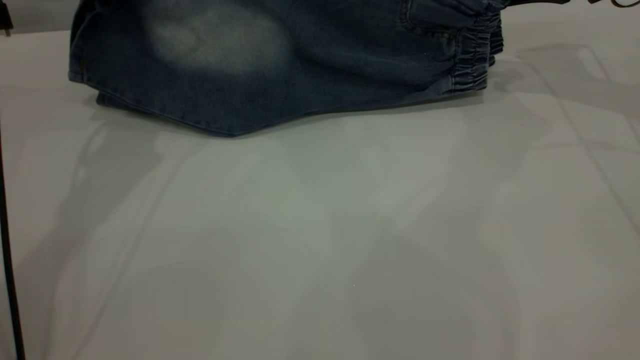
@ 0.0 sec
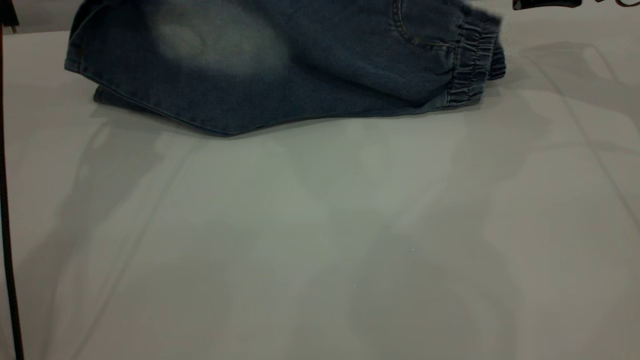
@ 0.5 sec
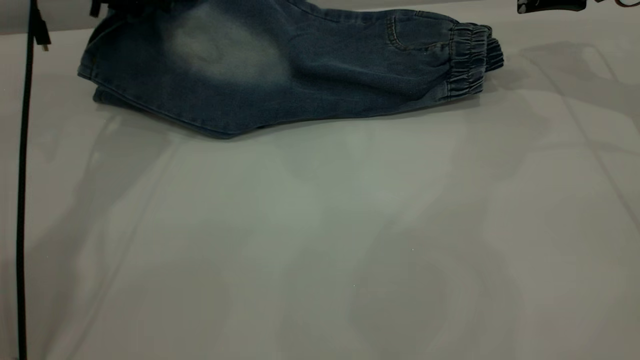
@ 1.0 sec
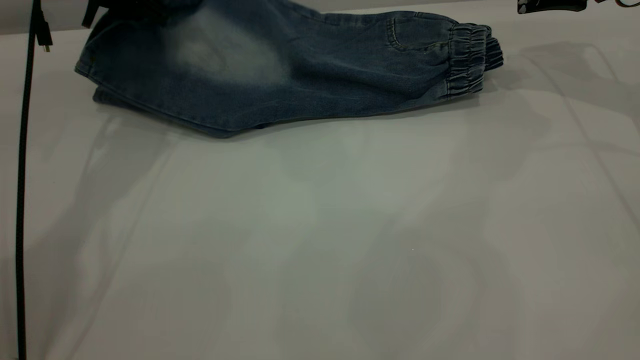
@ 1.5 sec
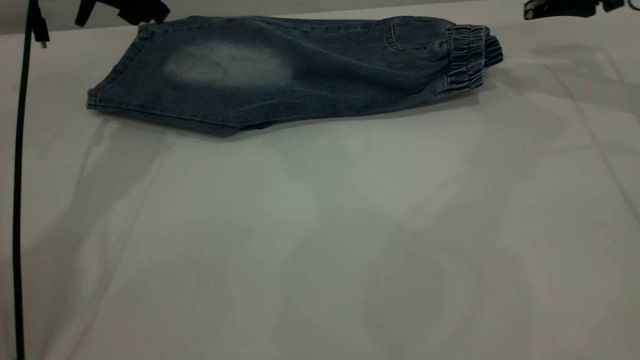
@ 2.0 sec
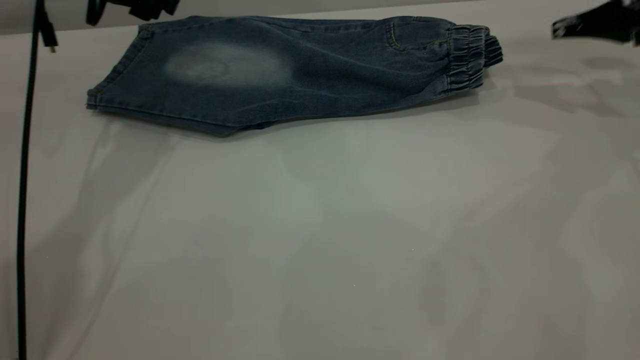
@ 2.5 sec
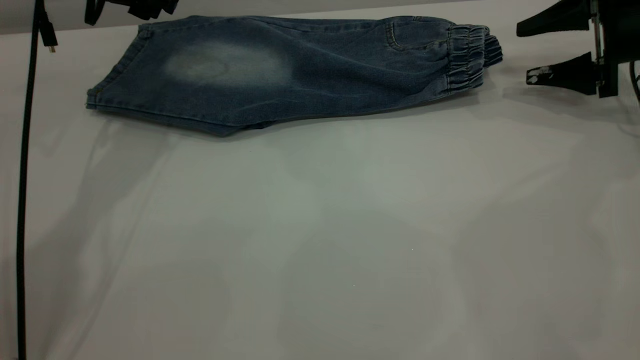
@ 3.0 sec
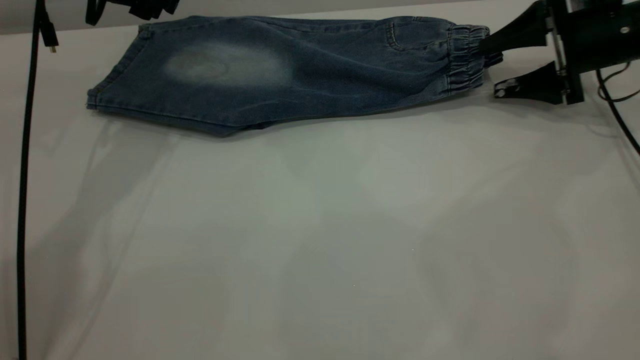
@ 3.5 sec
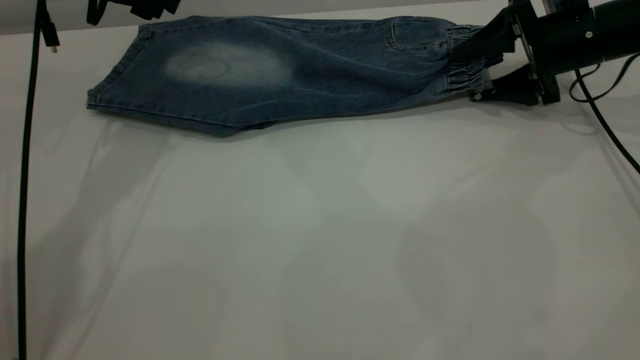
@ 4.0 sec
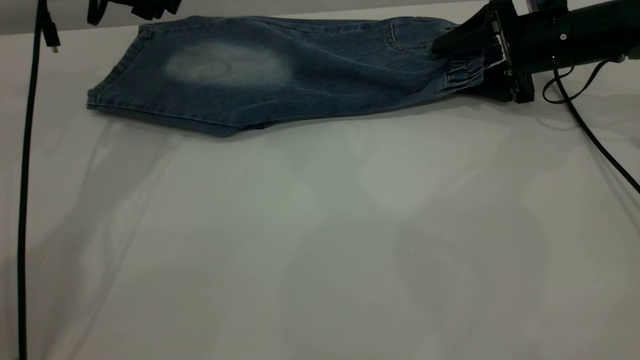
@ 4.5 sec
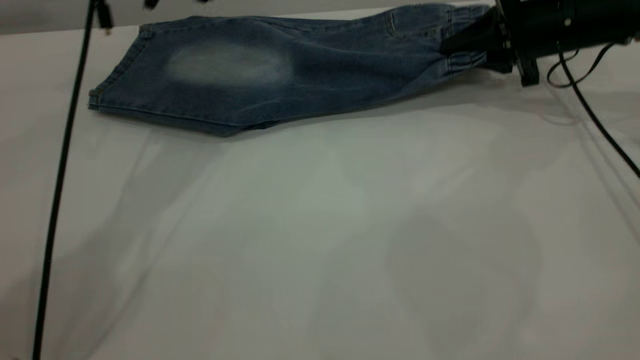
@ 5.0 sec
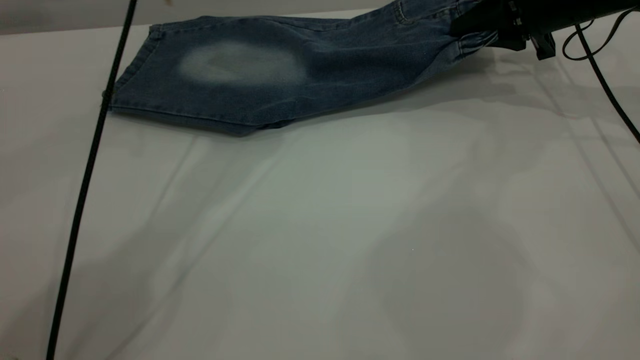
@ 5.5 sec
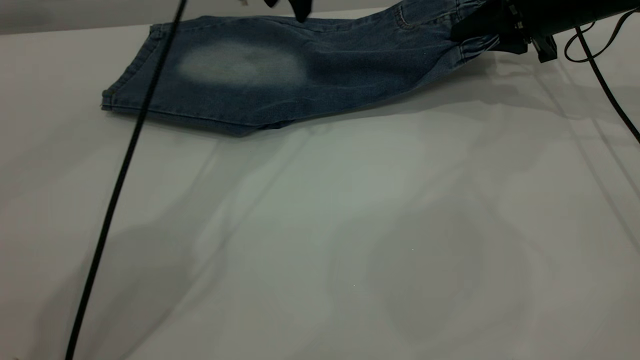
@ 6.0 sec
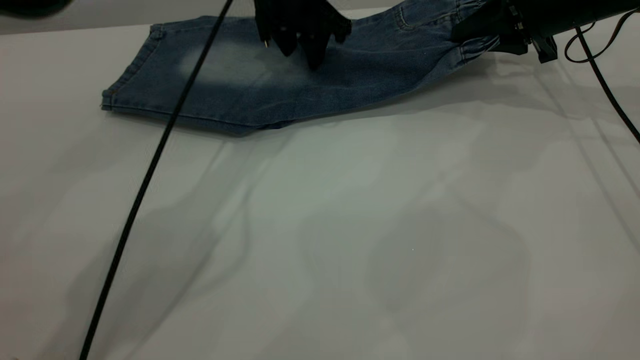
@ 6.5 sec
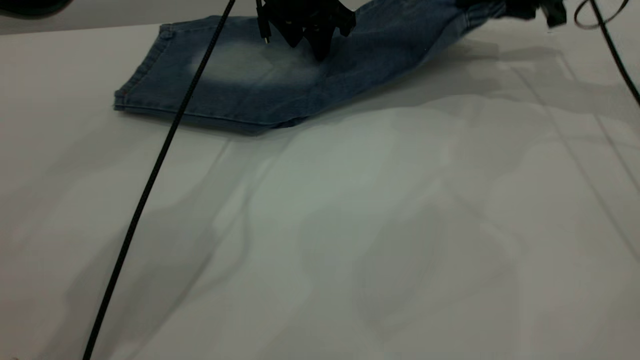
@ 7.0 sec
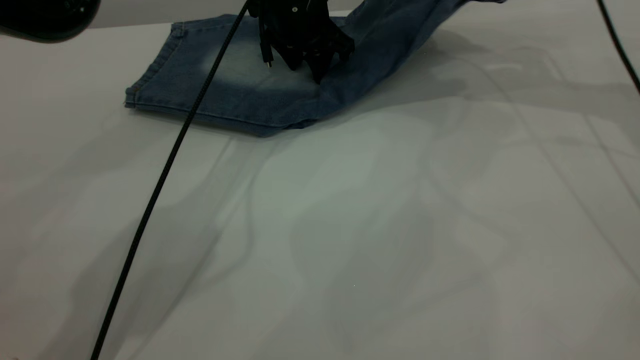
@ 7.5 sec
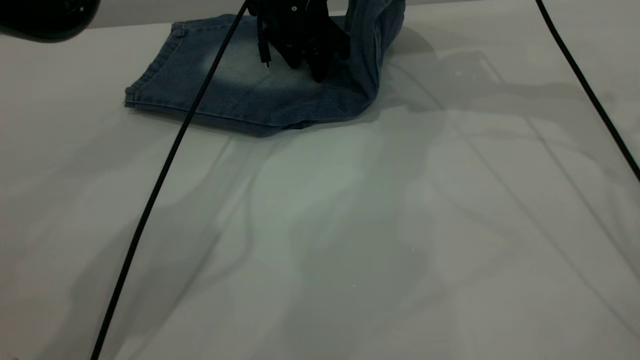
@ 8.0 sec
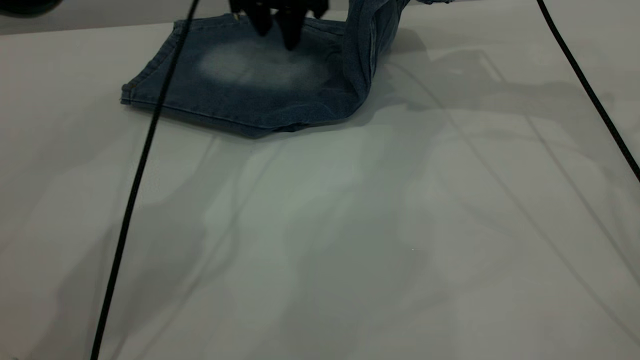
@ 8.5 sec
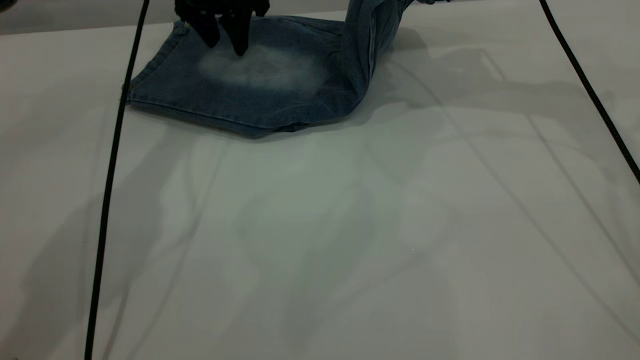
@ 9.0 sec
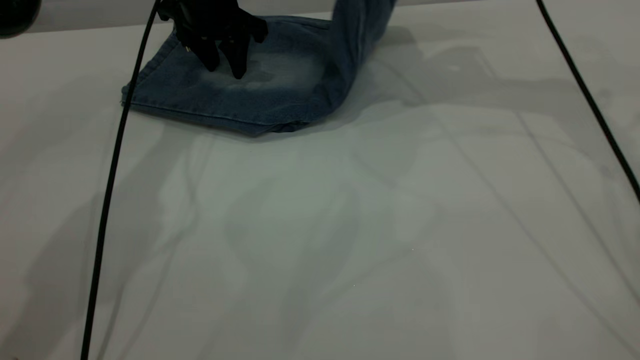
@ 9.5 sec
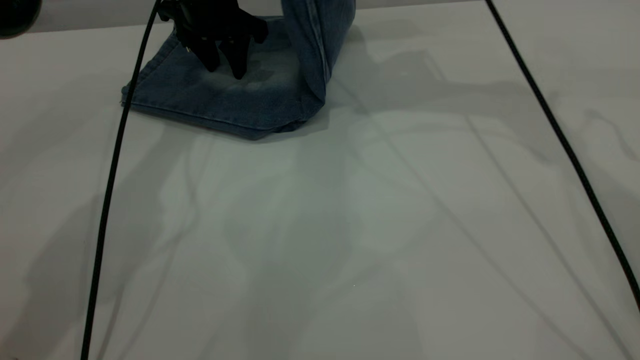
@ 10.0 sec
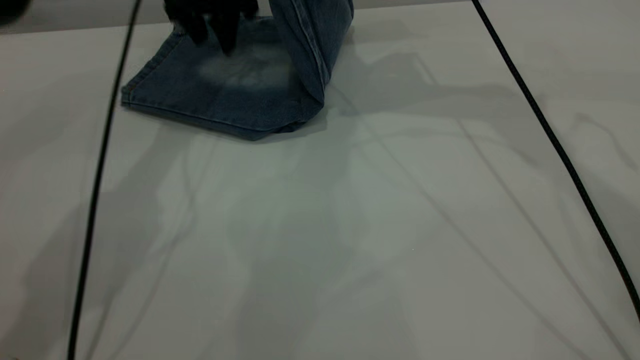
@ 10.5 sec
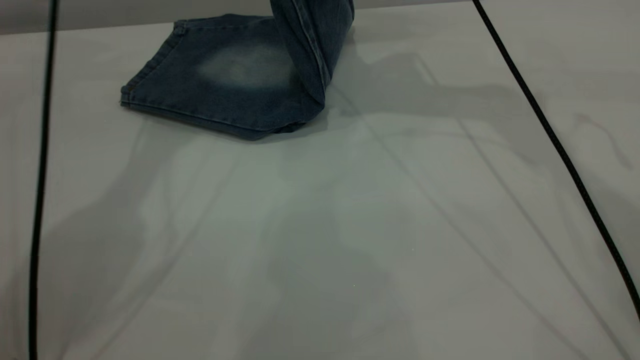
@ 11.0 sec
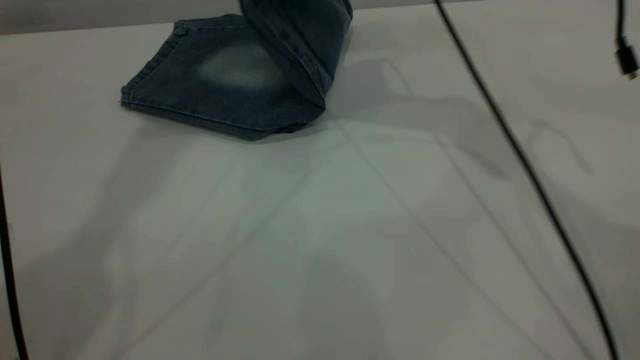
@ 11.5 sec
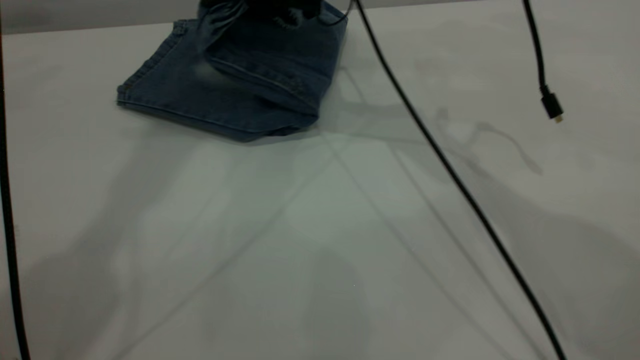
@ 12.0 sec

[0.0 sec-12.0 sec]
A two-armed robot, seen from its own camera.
0.0 sec to 2.0 sec: The left gripper changes place by about 5 cm, and opens up. The right gripper opens up.
2.0 sec to 4.0 sec: The right gripper goes about 10 cm downward.
4.0 sec to 6.0 sec: The left gripper travels to the right by roughly 15 cm; the right gripper closes.
6.0 sec to 8.0 sec: The left gripper shifts some 10 cm downward. The right gripper moves upward and to the left, roughly 15 cm.
8.0 sec to 10.0 sec: The right gripper is displaced to the left by roughly 5 cm, while the left gripper moves to the left, roughly 10 cm.
10.0 sec to 12.0 sec: The right gripper shifts some 15 cm to the left and downward. The left gripper goes roughly 35 cm upward.

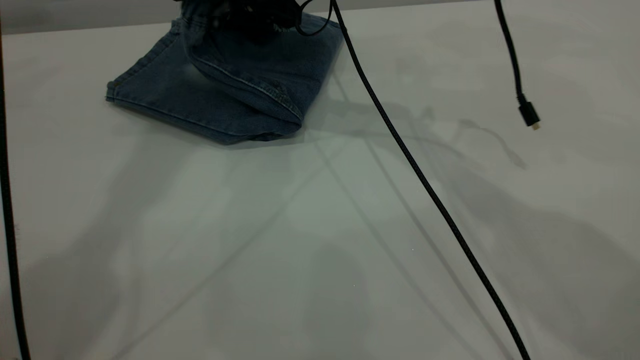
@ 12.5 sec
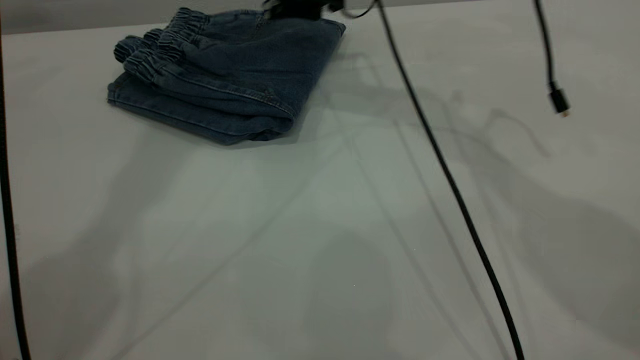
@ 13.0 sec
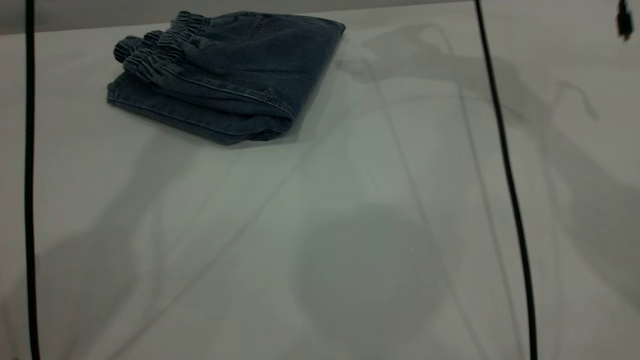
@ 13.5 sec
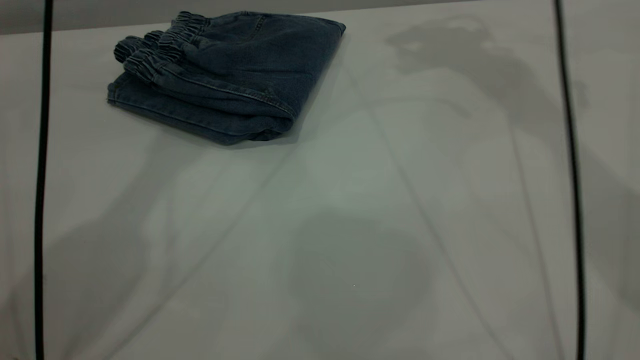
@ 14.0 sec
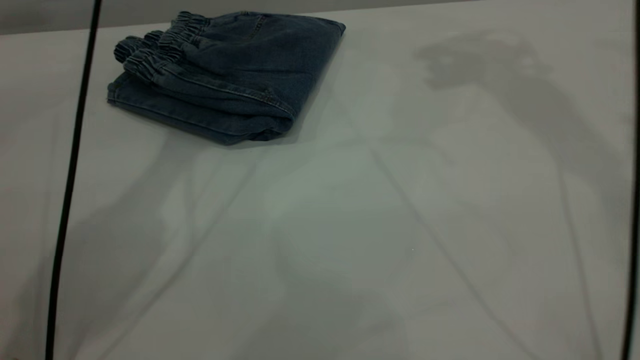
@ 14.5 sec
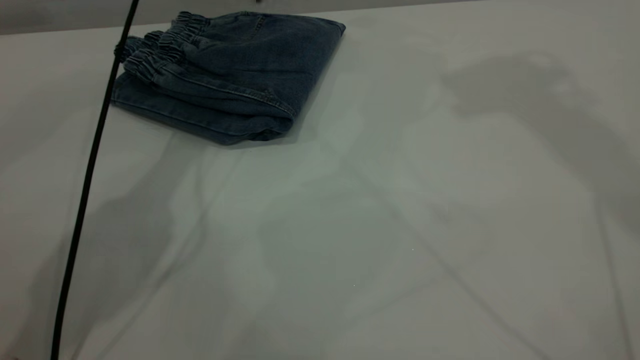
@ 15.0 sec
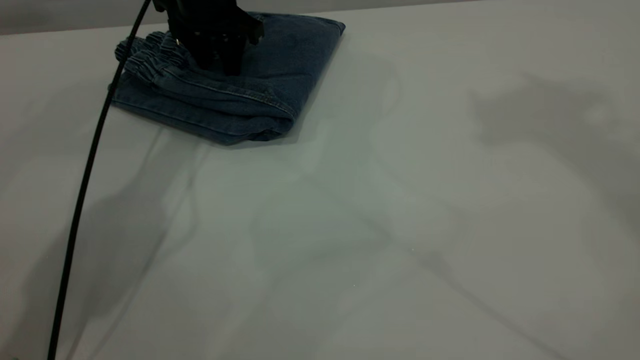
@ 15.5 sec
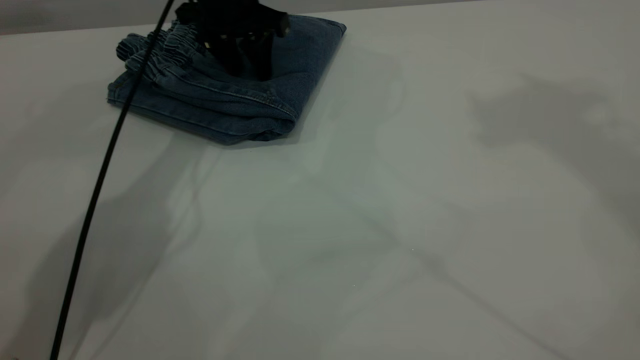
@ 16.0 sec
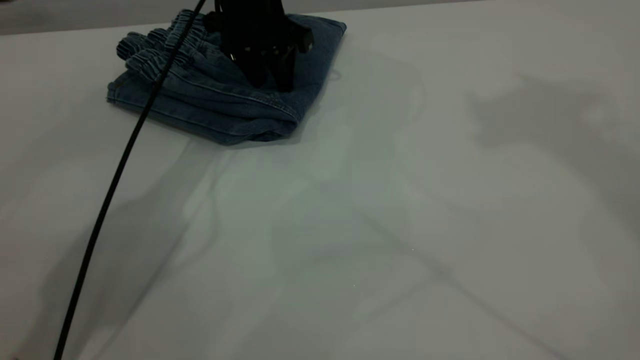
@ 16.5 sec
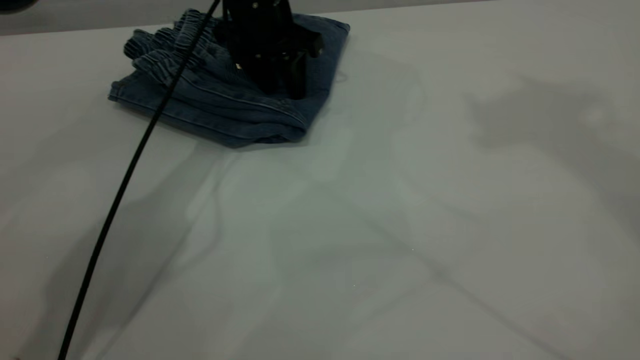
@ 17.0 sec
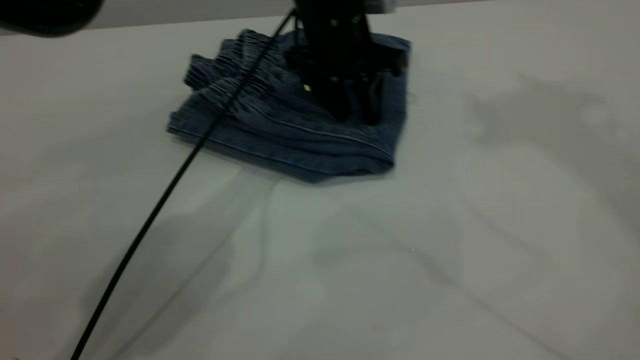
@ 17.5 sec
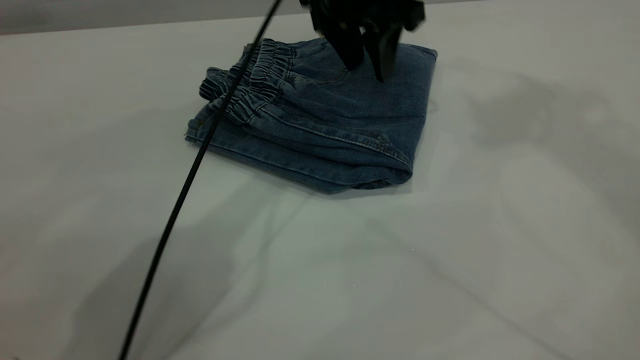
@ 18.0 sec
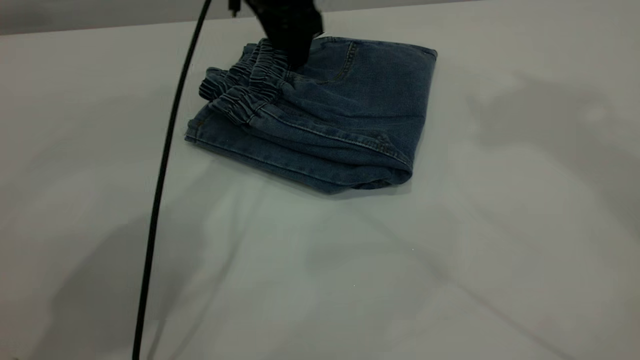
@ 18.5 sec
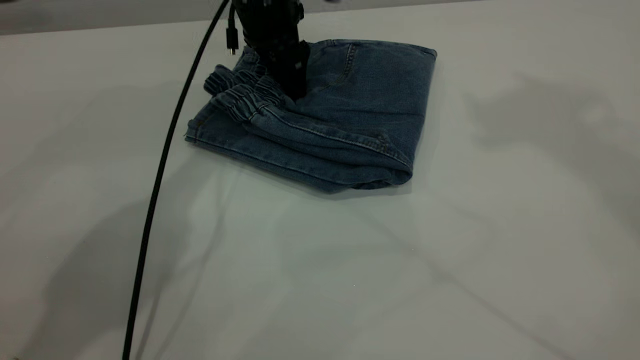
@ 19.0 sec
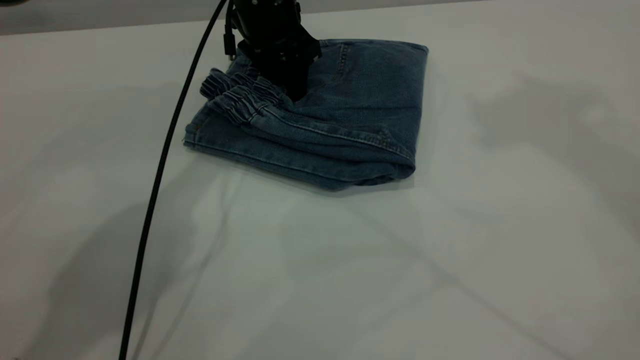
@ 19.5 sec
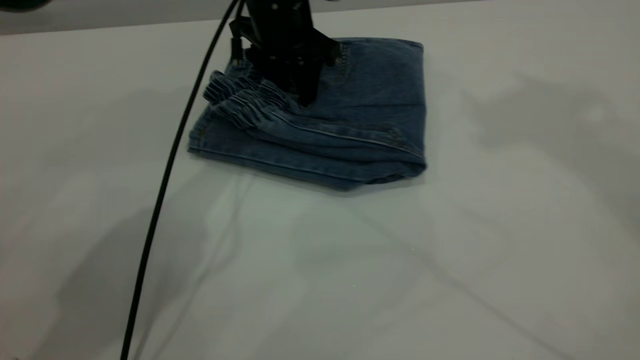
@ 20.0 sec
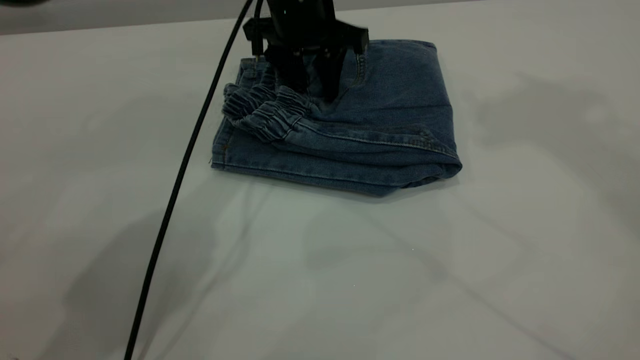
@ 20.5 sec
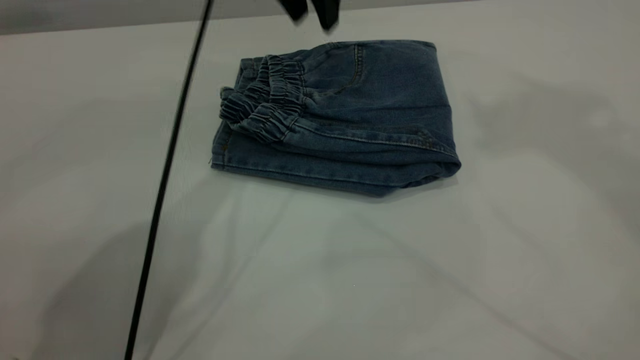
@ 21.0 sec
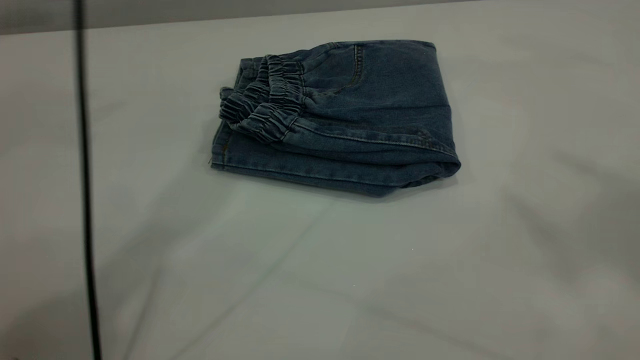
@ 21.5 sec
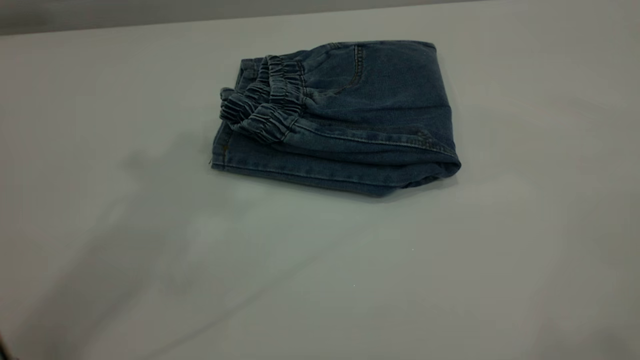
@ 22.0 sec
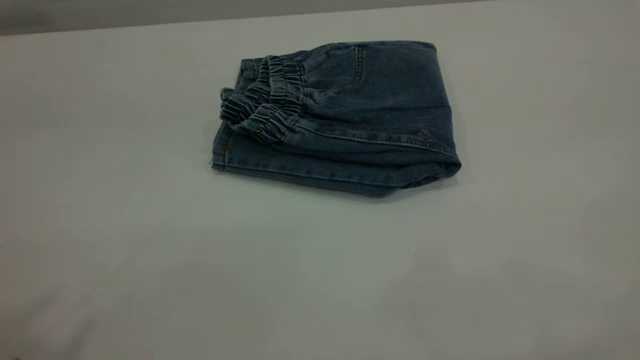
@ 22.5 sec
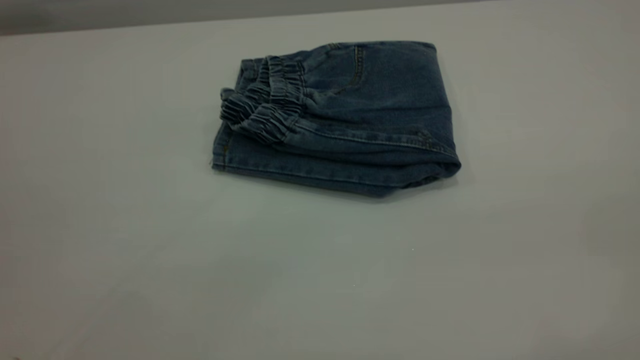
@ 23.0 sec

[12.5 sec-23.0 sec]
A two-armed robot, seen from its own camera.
12.5 sec to 14.5 sec: The right gripper travels upward and to the right by approximately 35 cm, while the left gripper travels downward by some 20 cm.
14.5 sec to 16.5 sec: The left gripper is displaced downward by approximately 15 cm, while the right gripper is displaced upward and backward by approximately 15 cm.
16.5 sec to 19.0 sec: The left gripper reaches roughly 10 cm to the right, then returns.
19.0 sec to 21.0 sec: The left gripper travels upward by approximately 10 cm.
21.0 sec to 23.0 sec: The left gripper travels backward and to the left by some 50 cm. The right gripper is displaced backward by roughly 40 cm.
